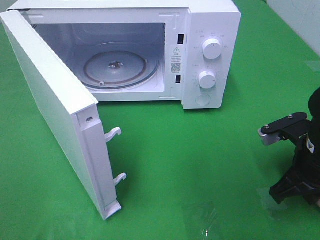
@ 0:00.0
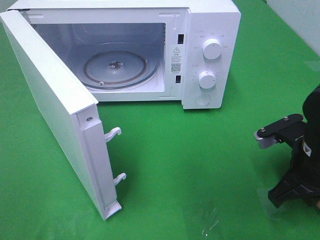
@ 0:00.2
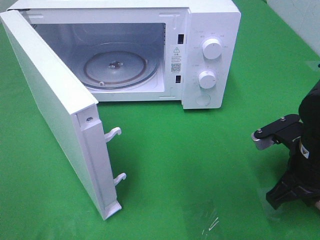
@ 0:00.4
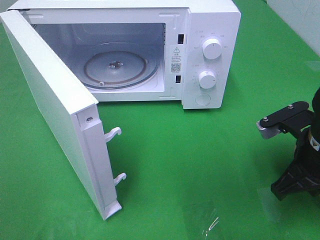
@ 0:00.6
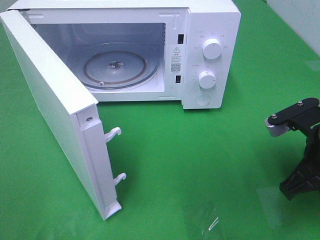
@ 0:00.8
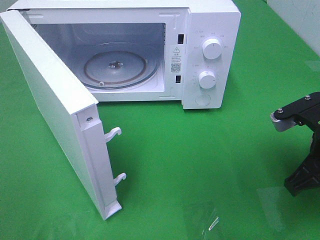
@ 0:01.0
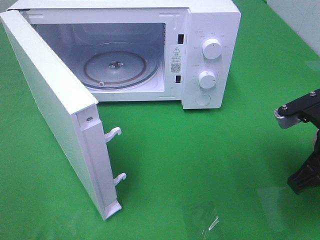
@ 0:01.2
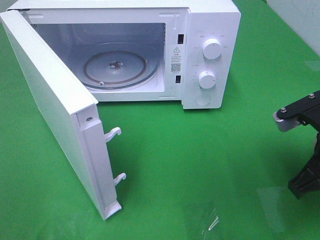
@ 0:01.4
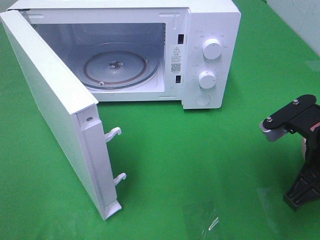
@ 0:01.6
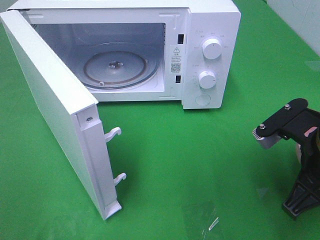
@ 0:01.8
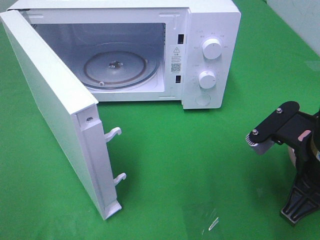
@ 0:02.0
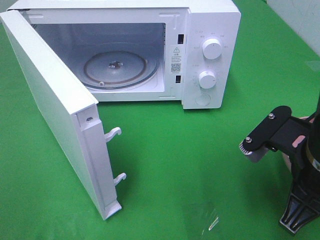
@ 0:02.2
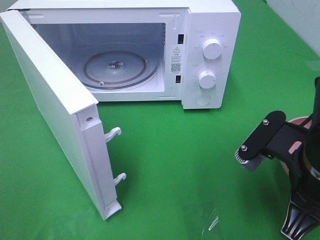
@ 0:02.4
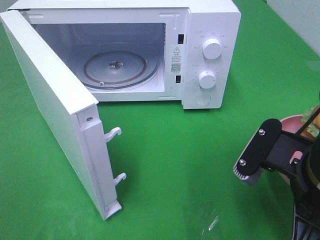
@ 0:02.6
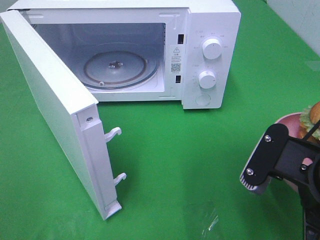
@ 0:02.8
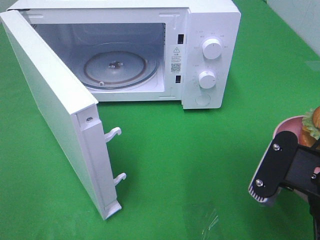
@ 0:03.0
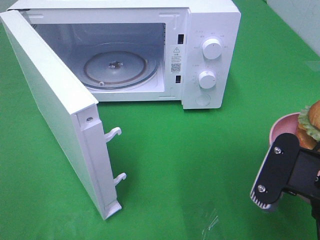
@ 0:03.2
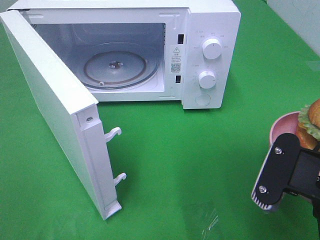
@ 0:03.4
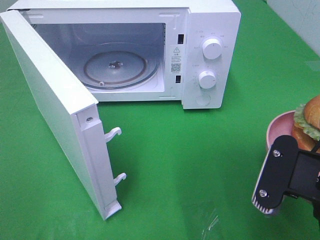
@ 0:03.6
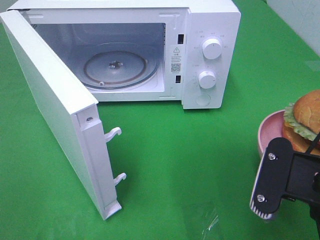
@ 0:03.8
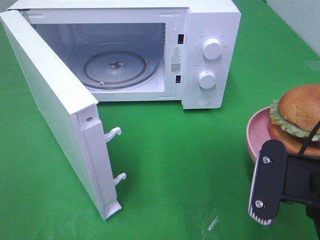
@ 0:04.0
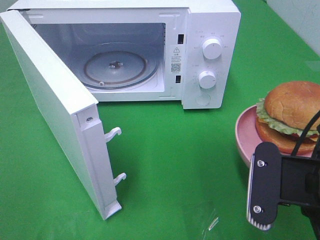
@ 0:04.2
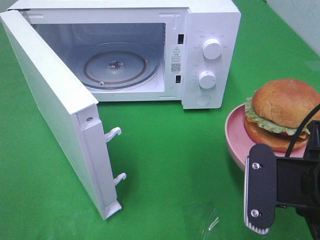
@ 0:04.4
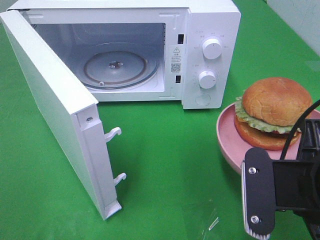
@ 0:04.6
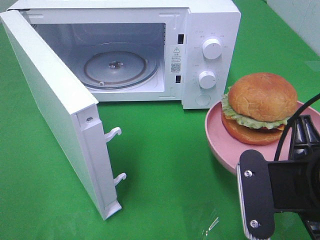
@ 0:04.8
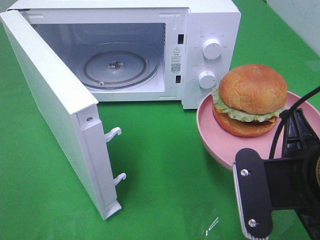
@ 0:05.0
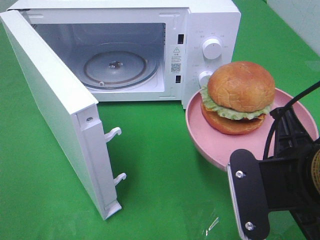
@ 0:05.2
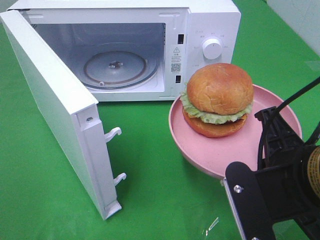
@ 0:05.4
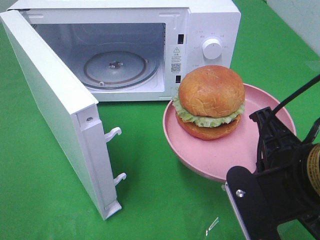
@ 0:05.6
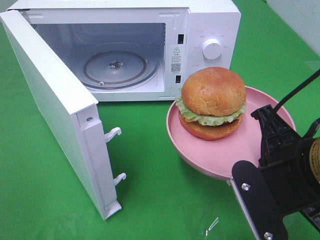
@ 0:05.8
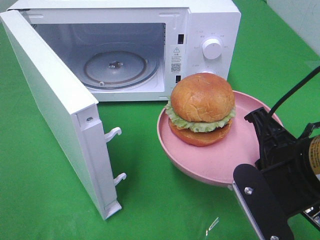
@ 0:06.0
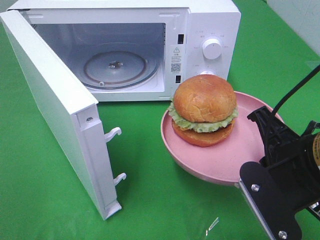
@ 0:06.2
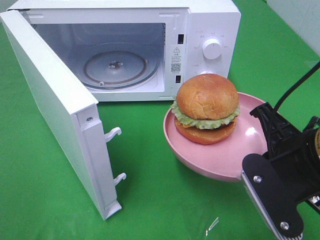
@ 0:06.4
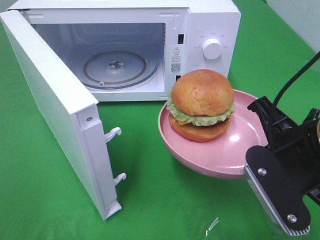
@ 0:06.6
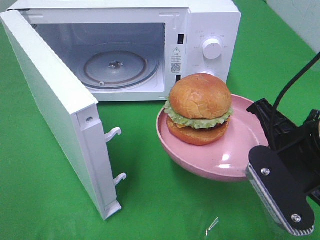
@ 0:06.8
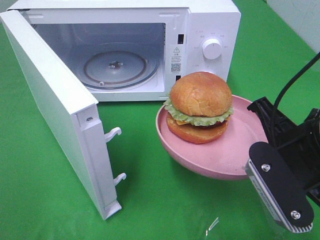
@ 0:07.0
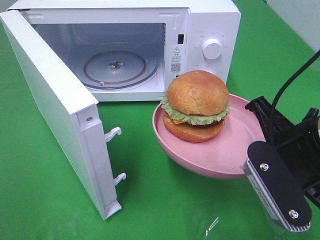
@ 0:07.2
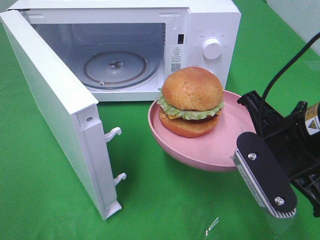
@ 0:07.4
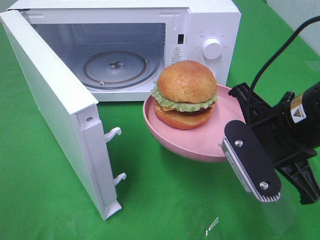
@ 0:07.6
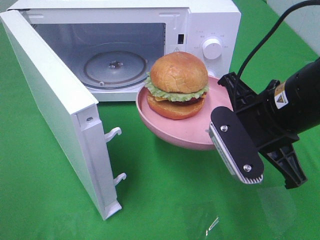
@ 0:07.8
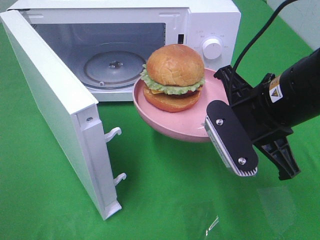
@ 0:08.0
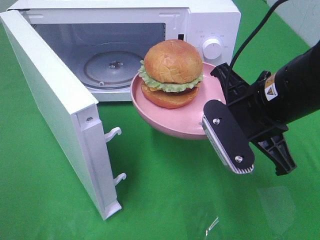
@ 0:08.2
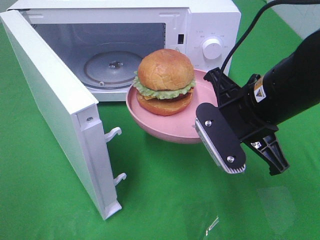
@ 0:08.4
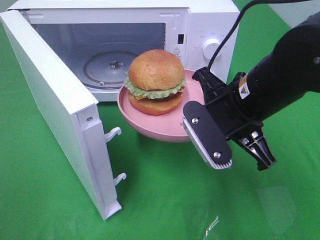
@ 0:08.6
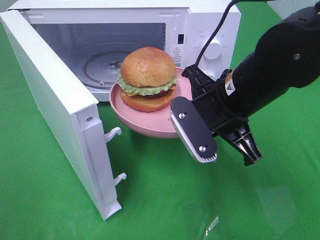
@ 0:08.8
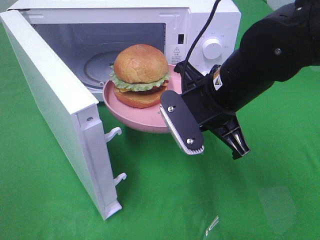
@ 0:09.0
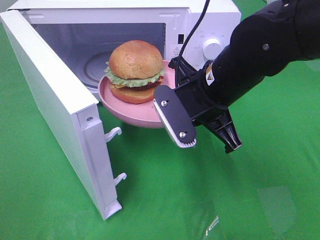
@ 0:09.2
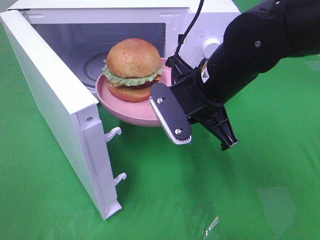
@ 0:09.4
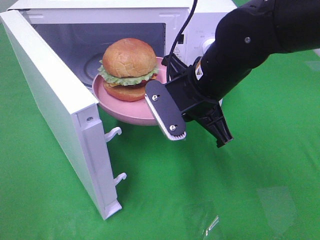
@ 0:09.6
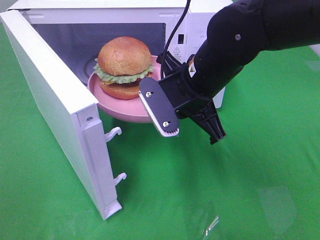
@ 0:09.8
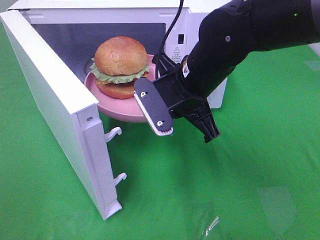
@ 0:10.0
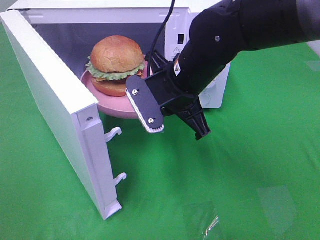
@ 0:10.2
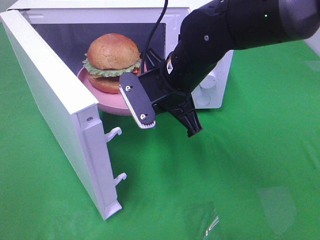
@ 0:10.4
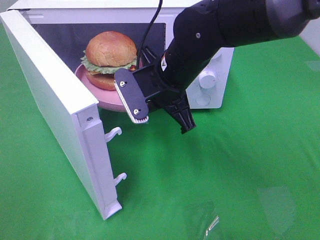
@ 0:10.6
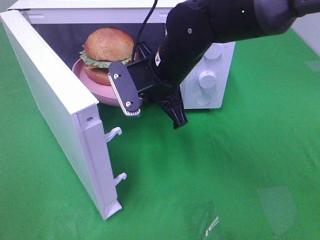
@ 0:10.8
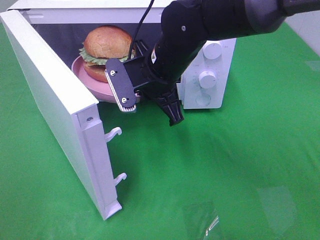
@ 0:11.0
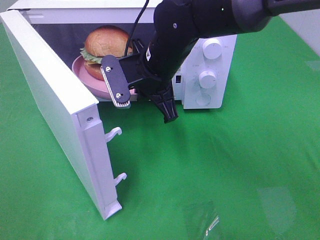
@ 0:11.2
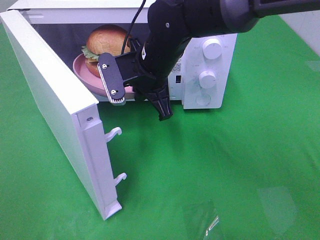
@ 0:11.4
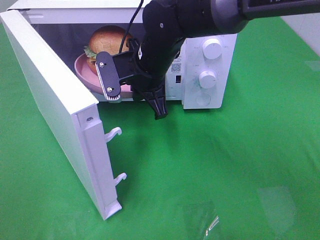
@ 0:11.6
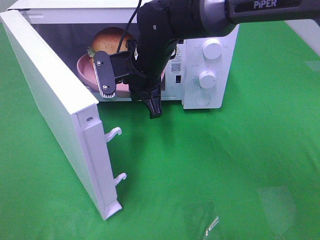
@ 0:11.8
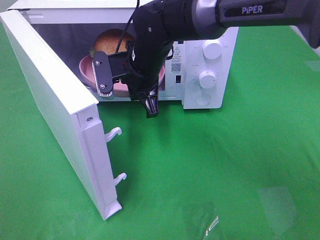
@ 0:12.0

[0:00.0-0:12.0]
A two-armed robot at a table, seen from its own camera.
Task of the whole recording: Heat the burger.
0:00.0 to 0:01.6: The right gripper is displaced upward by about 5 cm.
0:01.6 to 0:03.0: The right gripper moves backward, approximately 5 cm.
0:06.0 to 0:07.6: The right gripper is displaced forward by roughly 5 cm.
0:07.6 to 0:09.0: The right gripper is displaced forward and to the left by about 10 cm.
0:09.0 to 0:10.4: The right gripper heads to the left, covering some 5 cm.
0:10.4 to 0:12.0: The right gripper moves forward and to the left, approximately 10 cm.

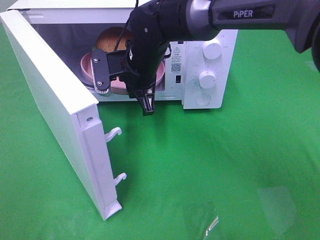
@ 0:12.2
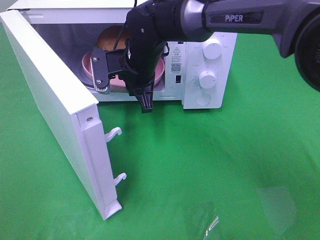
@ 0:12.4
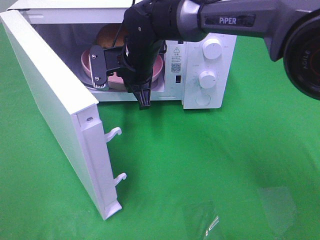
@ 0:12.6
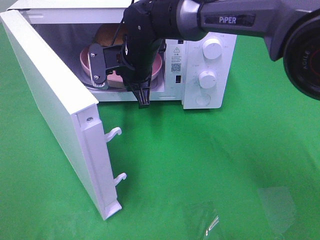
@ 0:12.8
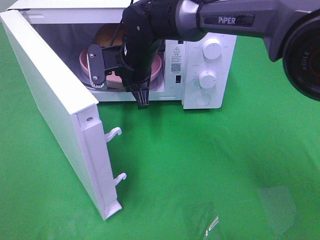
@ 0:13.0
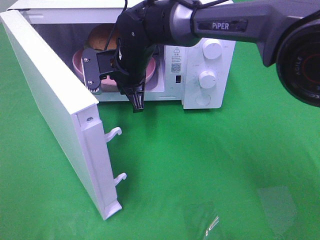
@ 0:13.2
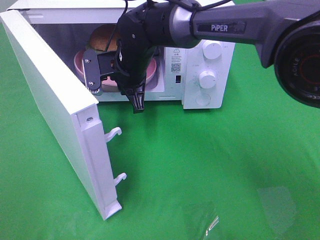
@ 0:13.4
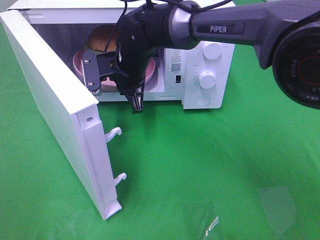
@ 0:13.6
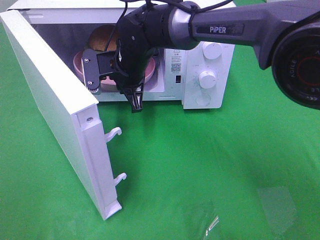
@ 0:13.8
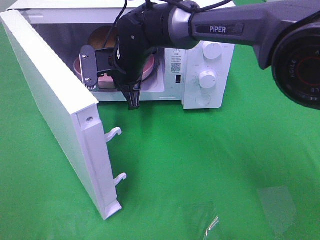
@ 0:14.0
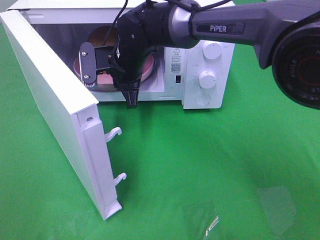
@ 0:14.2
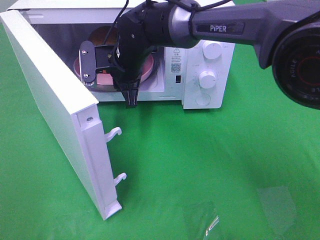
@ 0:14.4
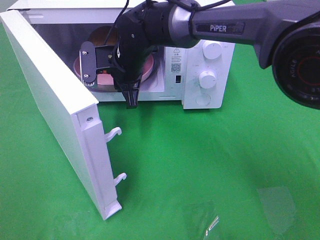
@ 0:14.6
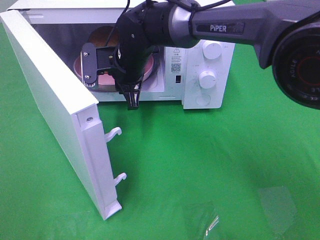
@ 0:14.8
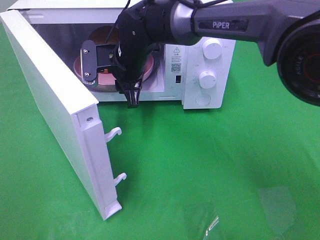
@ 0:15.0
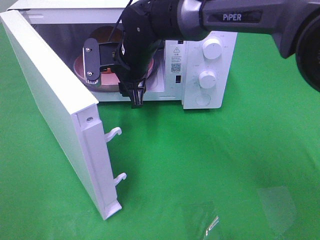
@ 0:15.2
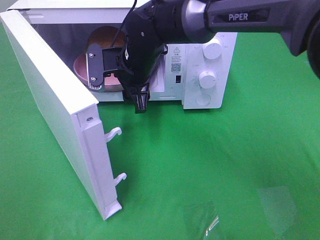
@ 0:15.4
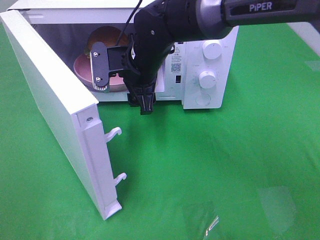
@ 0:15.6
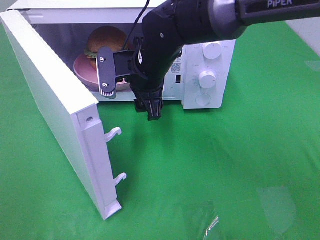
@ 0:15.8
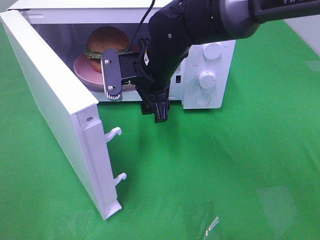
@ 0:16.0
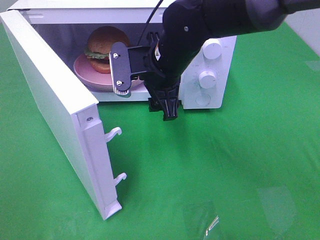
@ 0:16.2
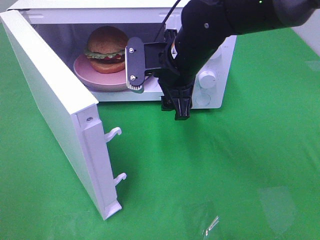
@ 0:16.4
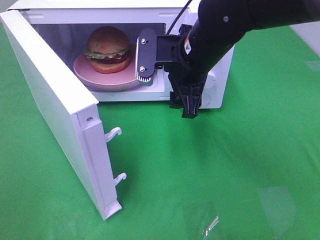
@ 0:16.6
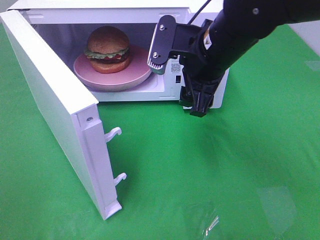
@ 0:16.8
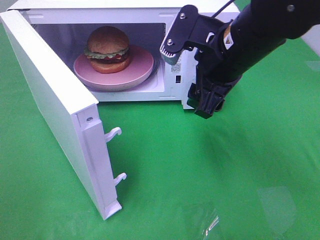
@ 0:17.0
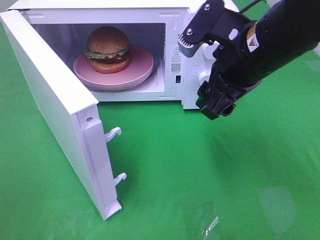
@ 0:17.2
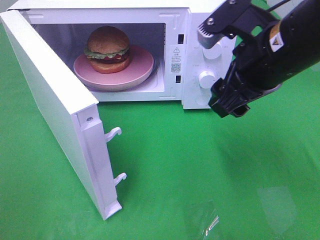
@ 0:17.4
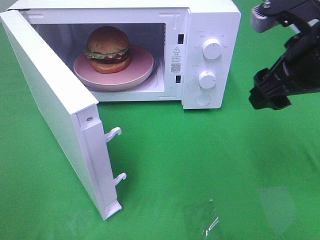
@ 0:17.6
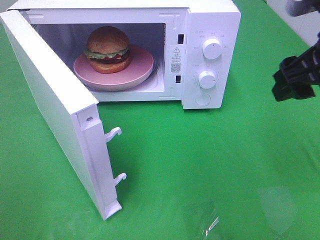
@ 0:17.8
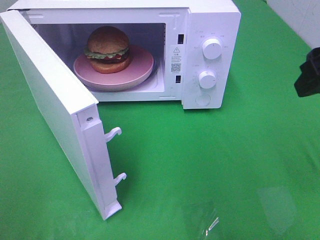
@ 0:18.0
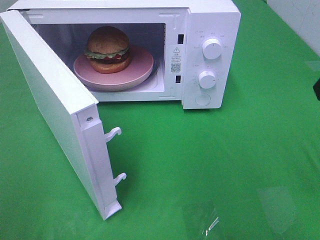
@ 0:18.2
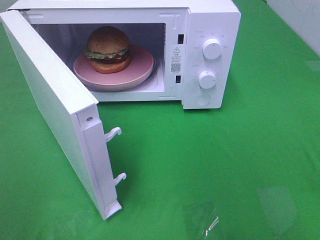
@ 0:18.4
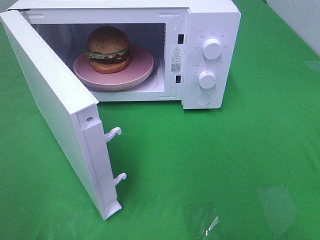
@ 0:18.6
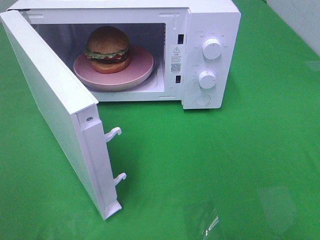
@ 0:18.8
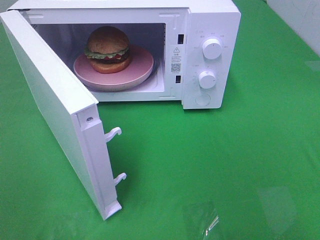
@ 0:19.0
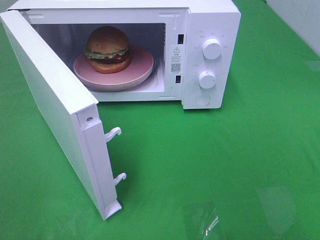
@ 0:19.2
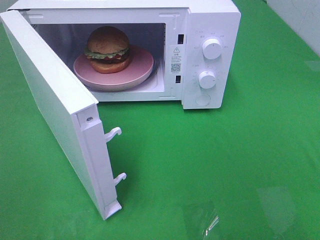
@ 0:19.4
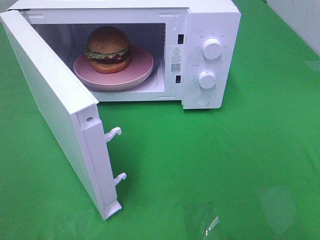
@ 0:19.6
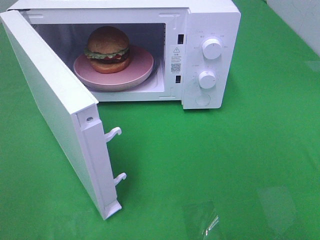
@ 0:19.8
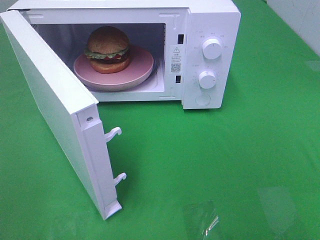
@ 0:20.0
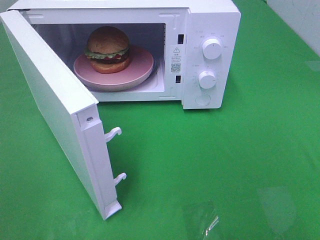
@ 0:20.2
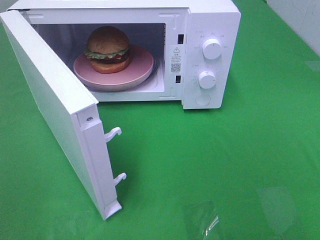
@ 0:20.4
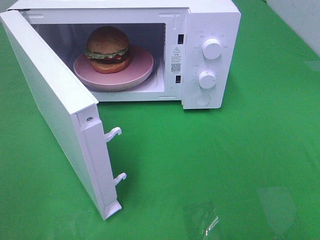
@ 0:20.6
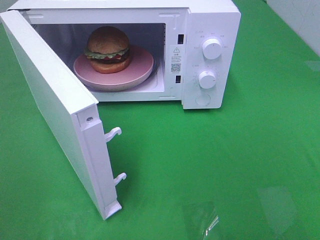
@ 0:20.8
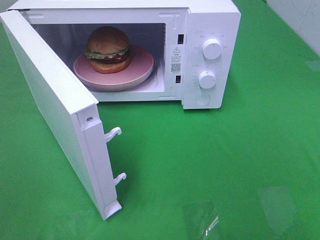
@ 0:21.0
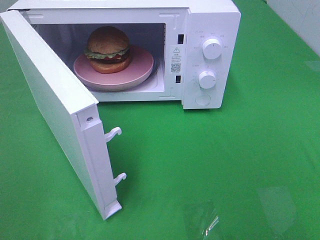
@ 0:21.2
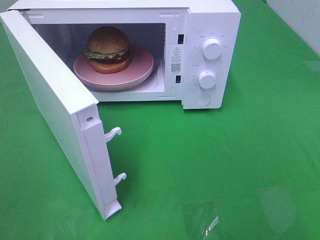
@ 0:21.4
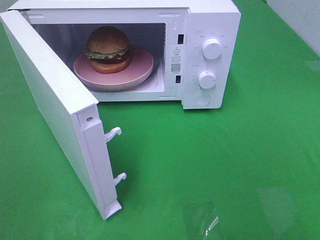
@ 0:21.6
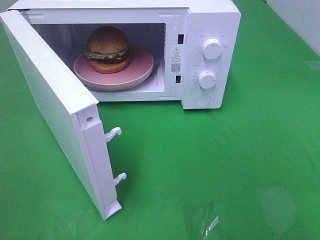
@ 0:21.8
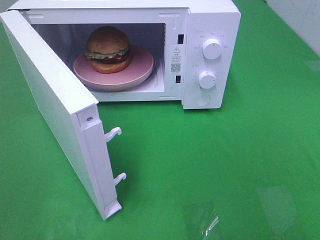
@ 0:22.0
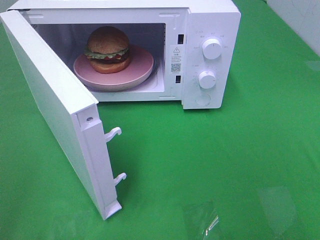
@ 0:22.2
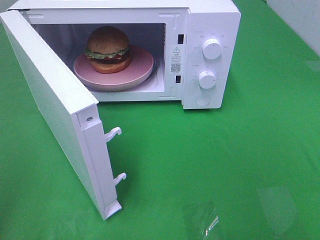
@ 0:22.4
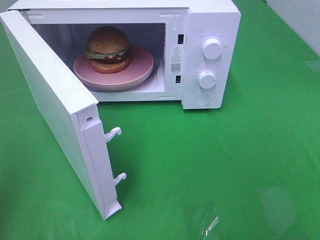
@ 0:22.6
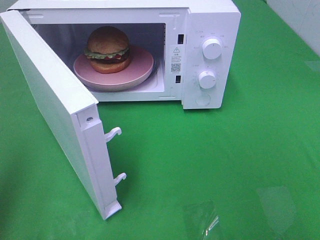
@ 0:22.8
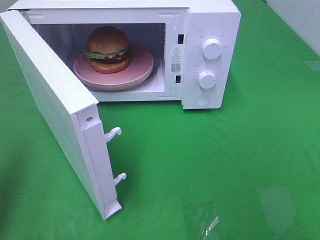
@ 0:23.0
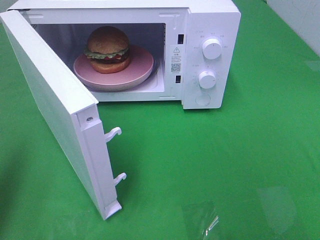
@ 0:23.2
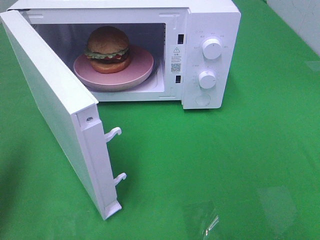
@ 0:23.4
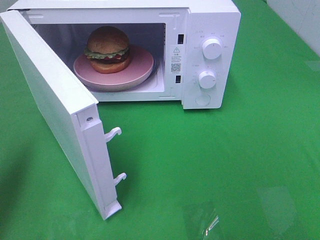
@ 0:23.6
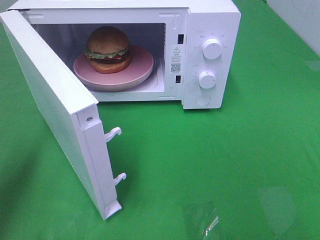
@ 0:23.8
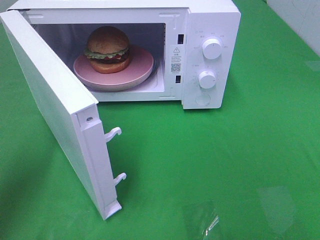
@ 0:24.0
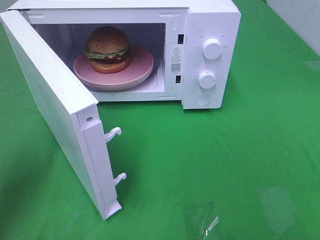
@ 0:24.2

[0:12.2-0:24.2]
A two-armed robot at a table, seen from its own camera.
Task of the whole recording: Heat the burger.
Step, 0:12.2 to 0:14.2: Right hand: place the plate in the microwave.
0:12.2 to 0:13.8: There are only small adjustments of the grippers.
0:13.8 to 0:15.2: The right gripper opens up.
0:15.2 to 0:16.6: The right gripper heads to the right and backward, covering roughly 15 cm.
0:16.6 to 0:18.2: The right gripper is displaced to the right, backward and upward by roughly 25 cm.
0:19.8 to 0:21.2: Both grippers stay put.
0:22.6 to 0:24.2: The left gripper goes approximately 15 cm forward and downward.
